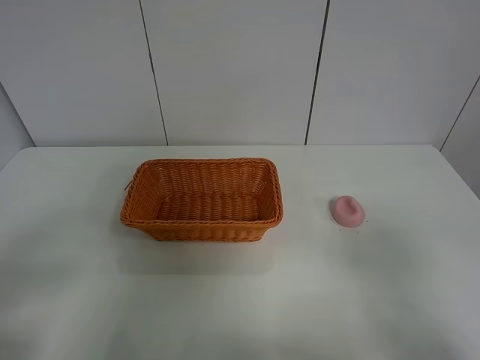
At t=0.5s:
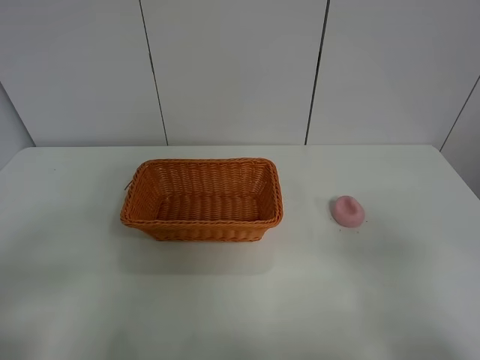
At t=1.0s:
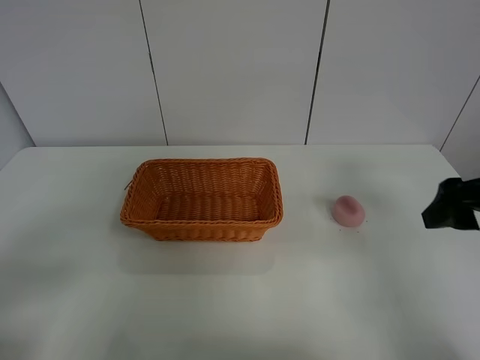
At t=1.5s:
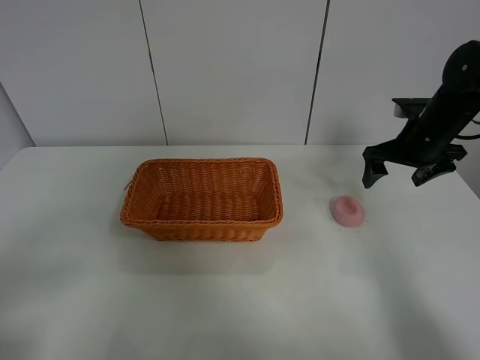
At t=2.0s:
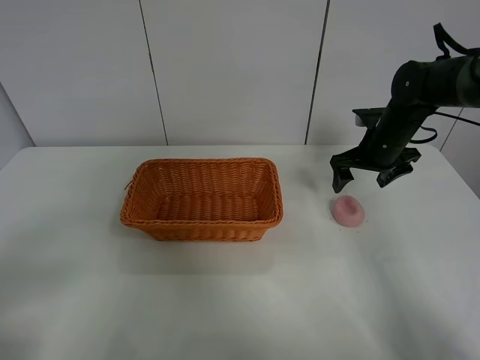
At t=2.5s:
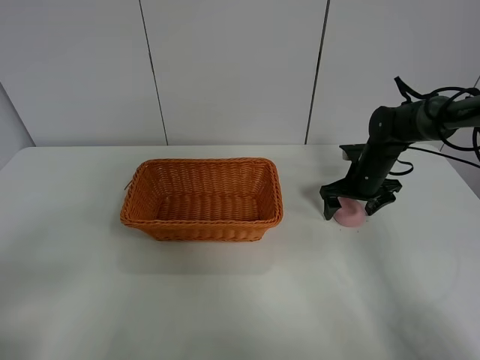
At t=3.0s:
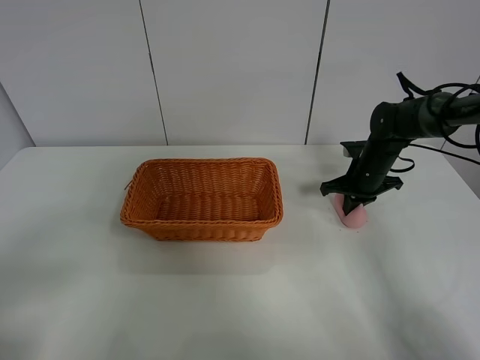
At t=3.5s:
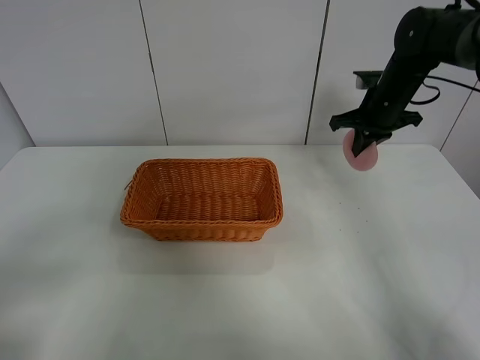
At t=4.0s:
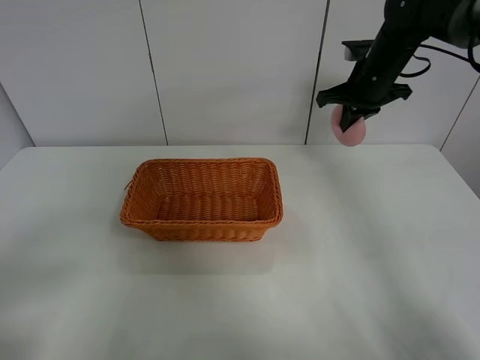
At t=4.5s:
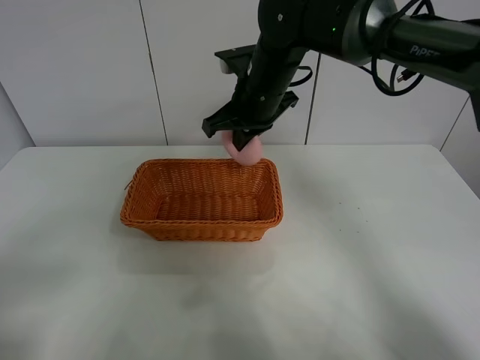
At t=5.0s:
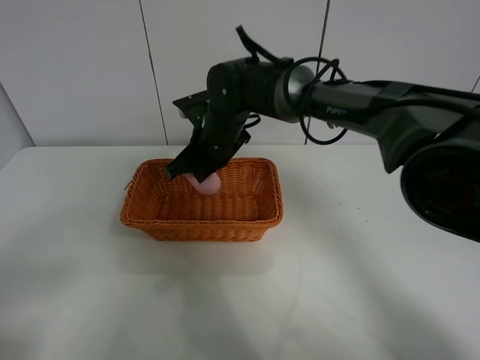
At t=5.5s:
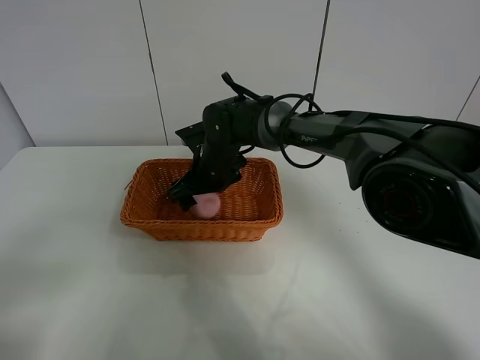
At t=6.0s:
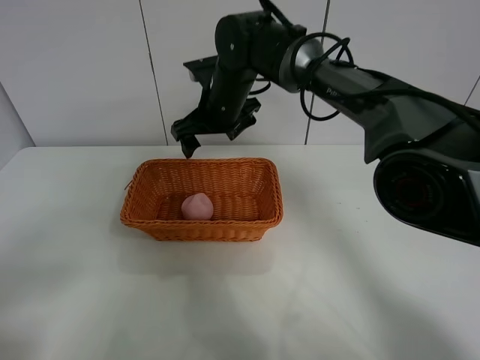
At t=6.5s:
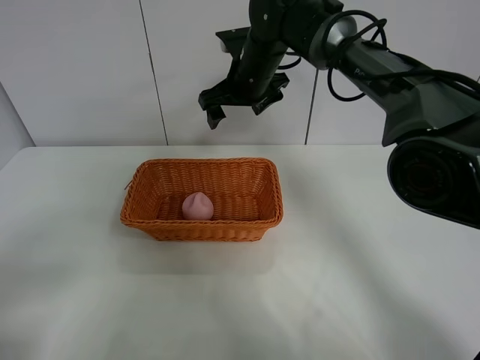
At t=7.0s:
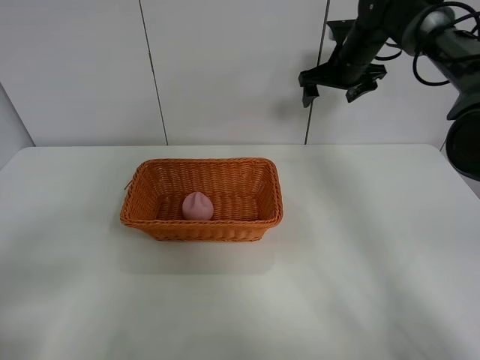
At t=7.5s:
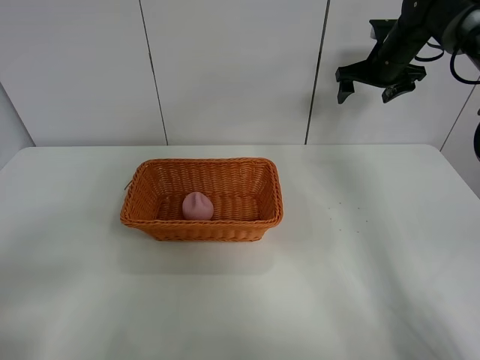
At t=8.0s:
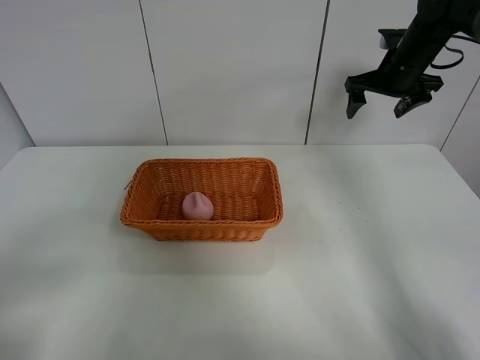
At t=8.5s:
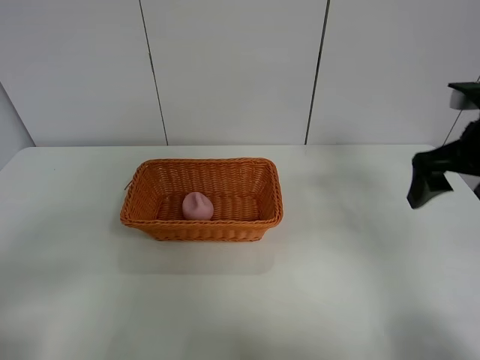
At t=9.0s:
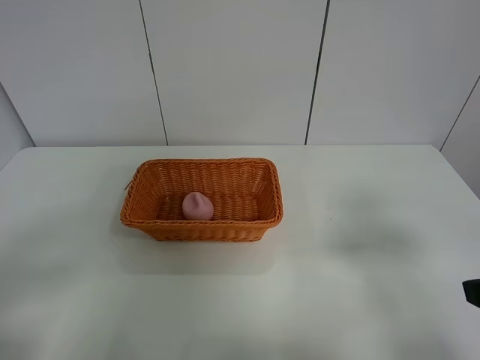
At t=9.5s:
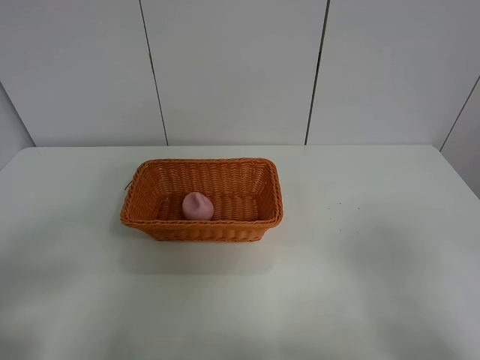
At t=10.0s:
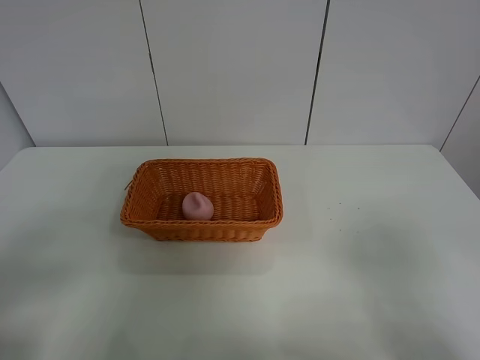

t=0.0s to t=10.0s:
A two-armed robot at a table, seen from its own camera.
Step, t=0.0s to t=3.0s: Grasp the peach with right gripper.
Step, t=3.5s to t=6.0s: Place the peach in the basket with right gripper.
t=0.0s to t=2.0s: The right gripper heads forward, covering about 40 cm.
t=2.0s to t=4.0s: The right gripper is displaced upward by some 10 cm, and closes up.
t=4.0s to t=6.0s: The right gripper is displaced to the left by roughly 20 cm, and opens its fingers.
t=6.0s to t=8.0s: The right gripper is displaced to the right by roughly 30 cm.
t=8.0s to t=10.0s: The right gripper goes about 50 cm backward.
